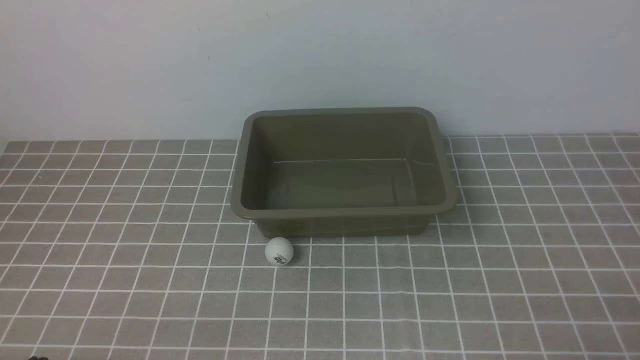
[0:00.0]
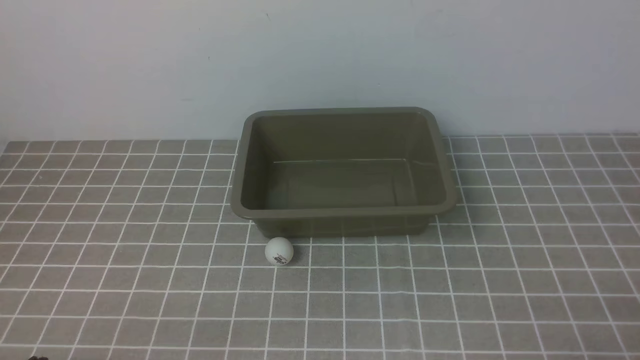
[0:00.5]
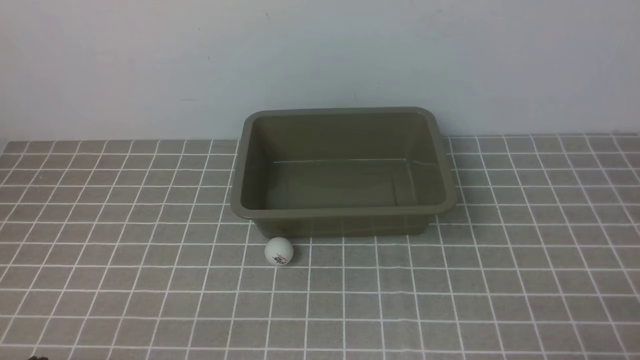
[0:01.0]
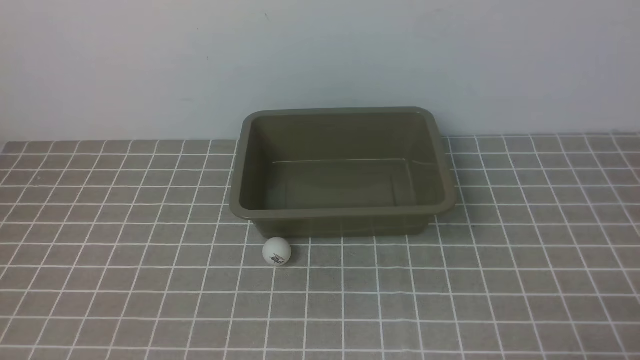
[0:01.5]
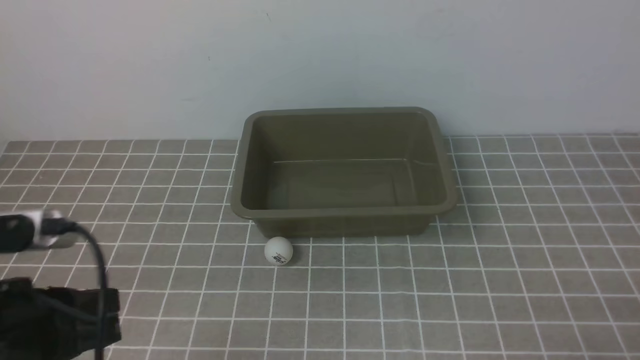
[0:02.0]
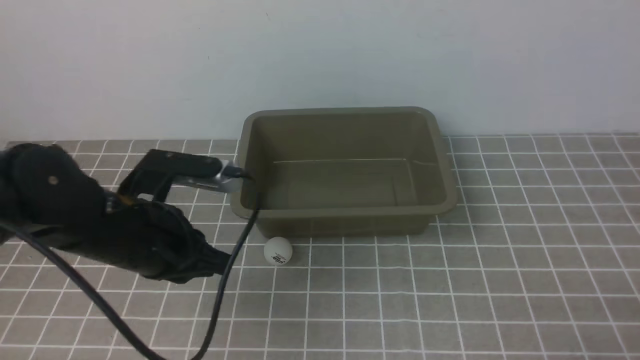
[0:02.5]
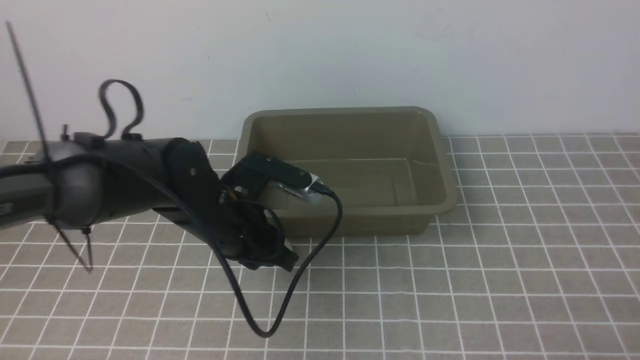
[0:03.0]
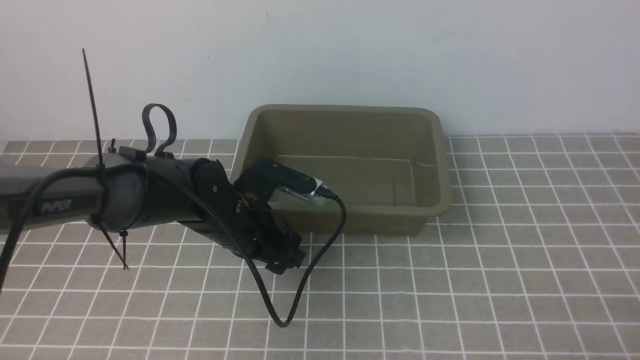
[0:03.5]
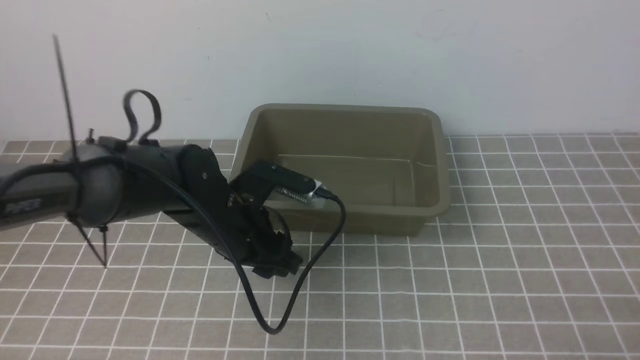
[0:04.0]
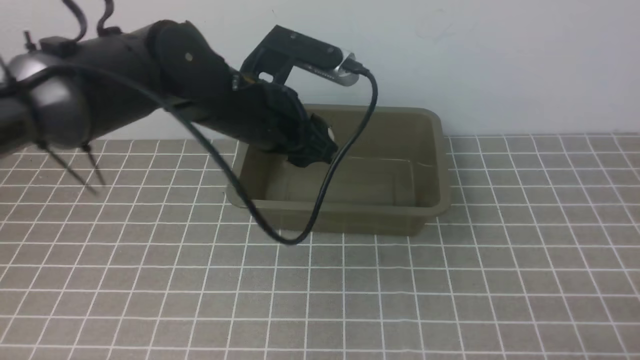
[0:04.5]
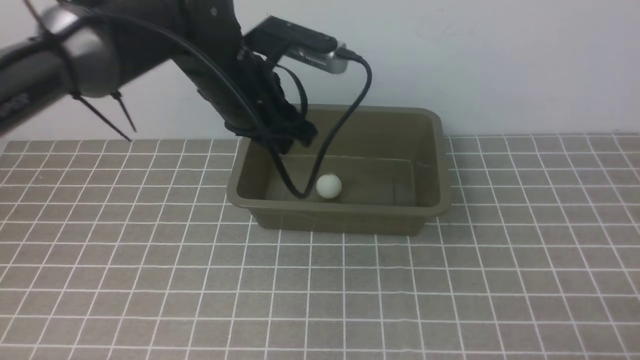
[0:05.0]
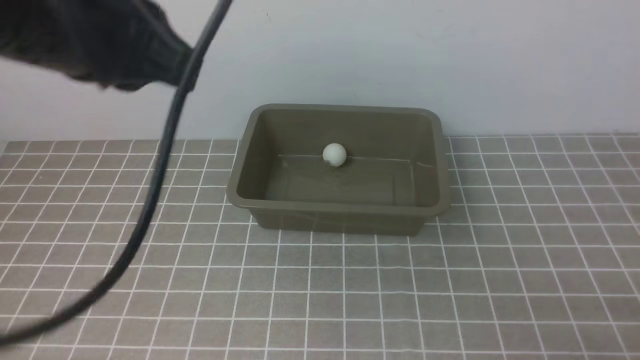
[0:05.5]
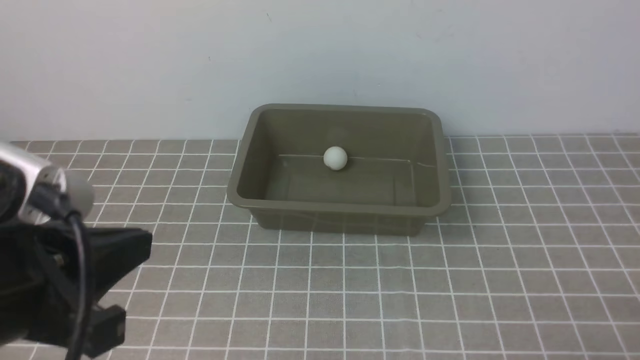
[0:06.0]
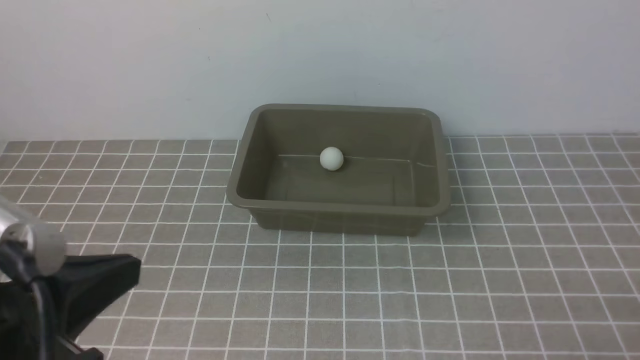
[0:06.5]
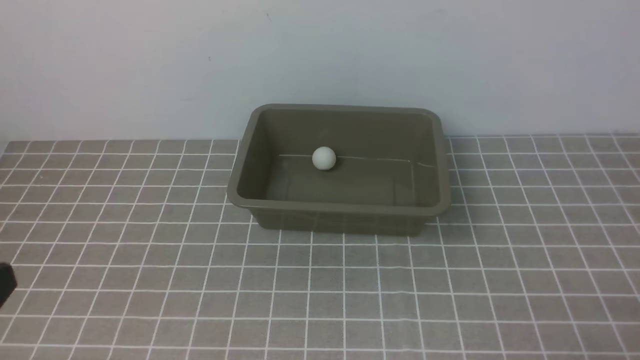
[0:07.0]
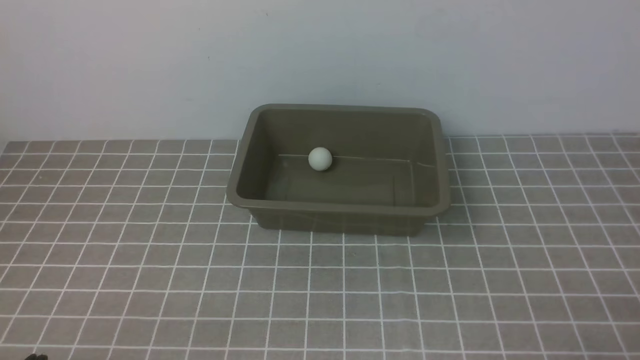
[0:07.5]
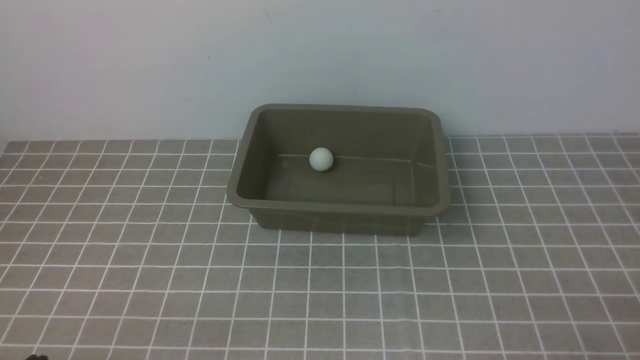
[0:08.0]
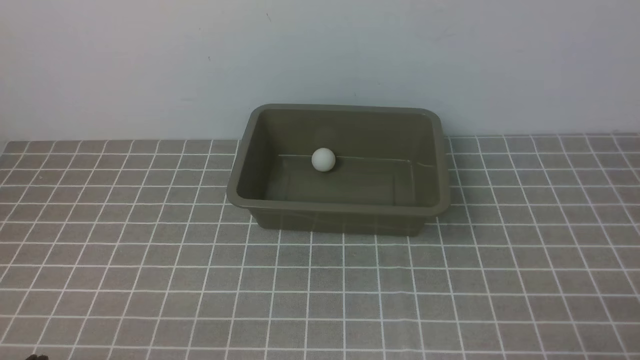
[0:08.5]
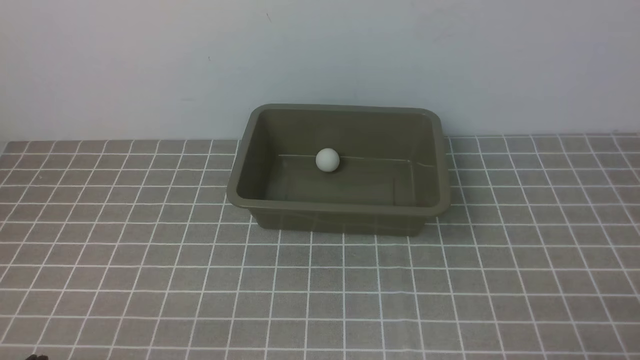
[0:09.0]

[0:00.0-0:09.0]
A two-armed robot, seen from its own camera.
Step, 0:00.0 to 0:04.0: use the left arm to clamp the table tennis ball closest to it.
Step, 0:04.5 to 0:05.0: use the left arm to put the table tennis ball into the box.
0:02.0 to 0:04.5: The left gripper shifts approximately 30 cm forward and to the right, and opens its fingers.
0:04.5 to 0:07.0: The left gripper is displaced backward and to the left by about 30 cm, and closes.

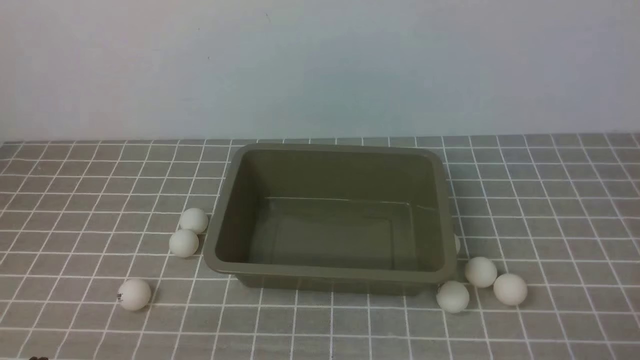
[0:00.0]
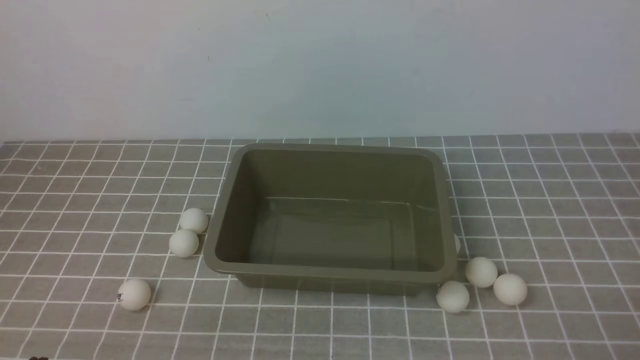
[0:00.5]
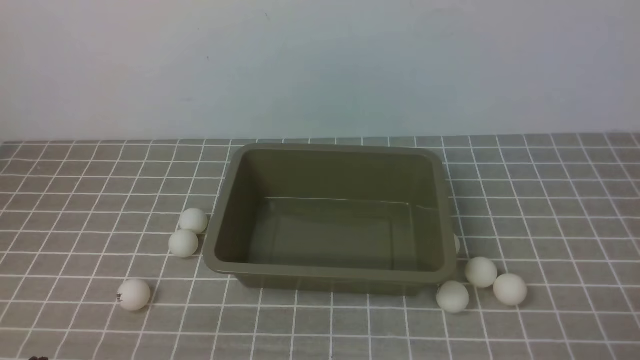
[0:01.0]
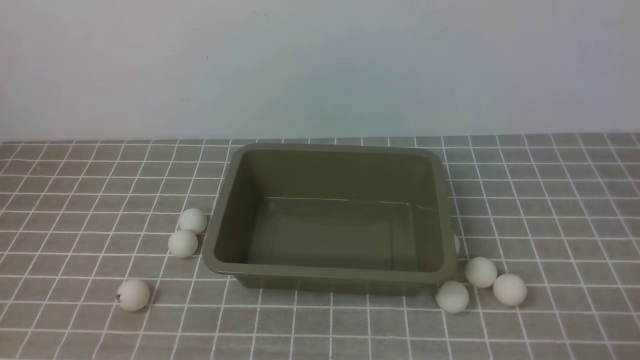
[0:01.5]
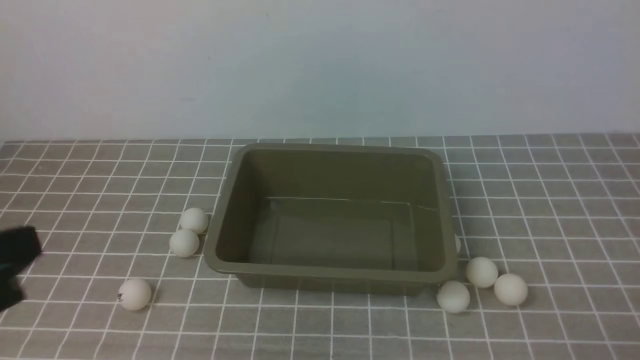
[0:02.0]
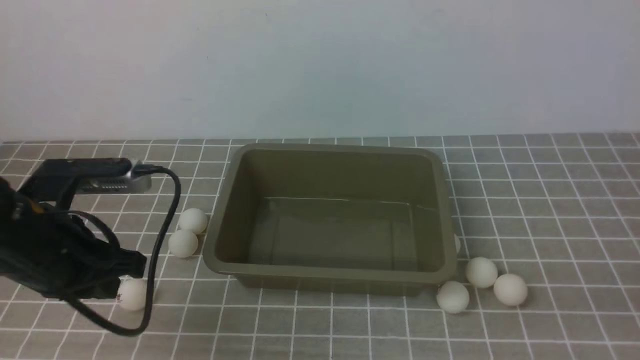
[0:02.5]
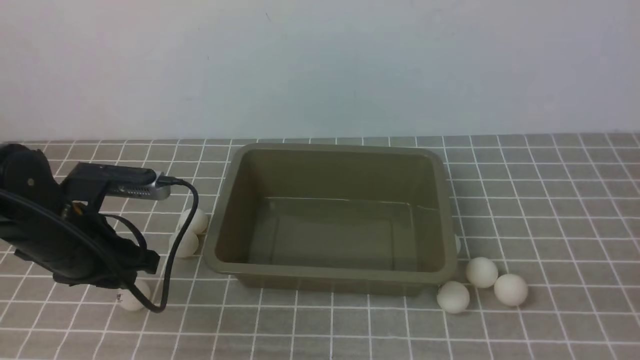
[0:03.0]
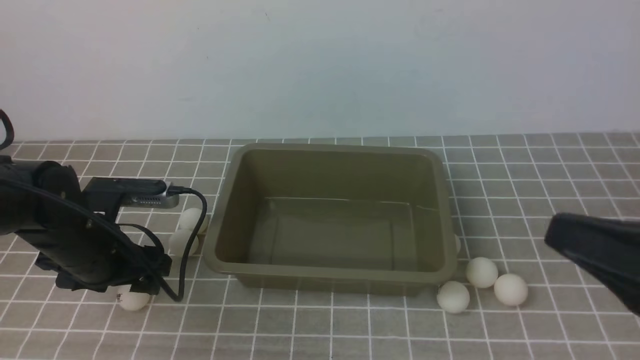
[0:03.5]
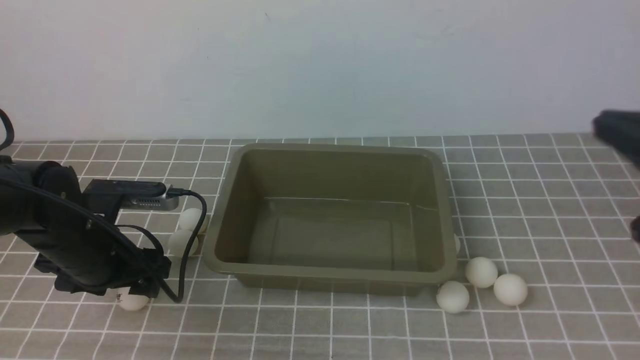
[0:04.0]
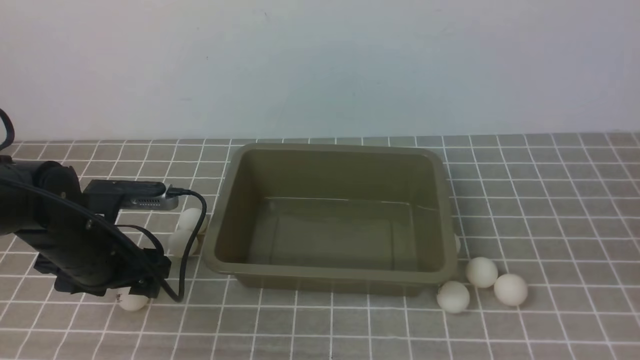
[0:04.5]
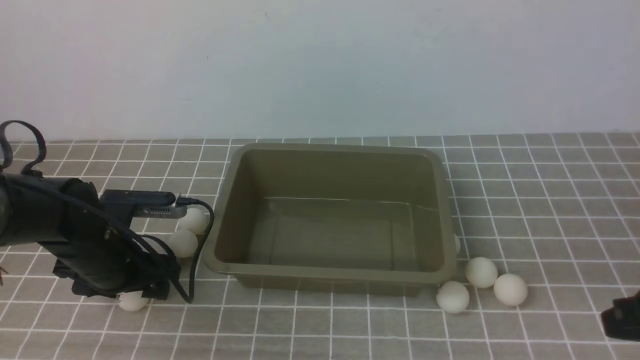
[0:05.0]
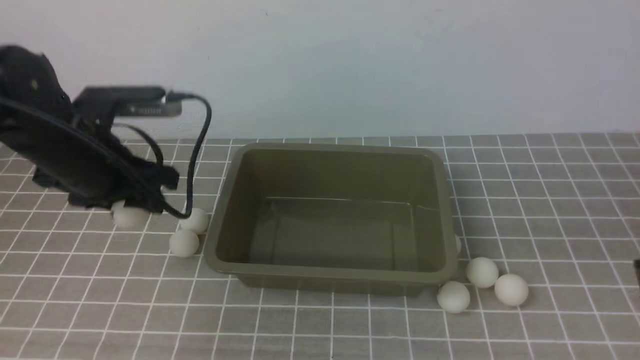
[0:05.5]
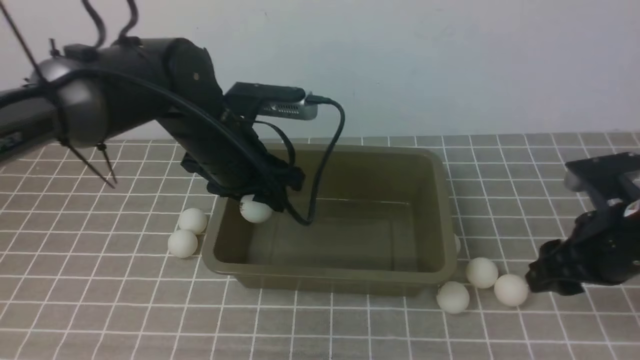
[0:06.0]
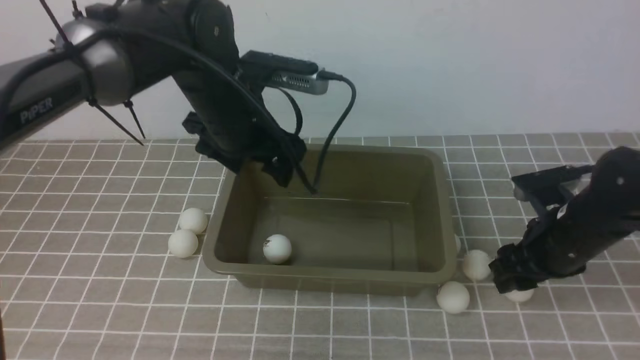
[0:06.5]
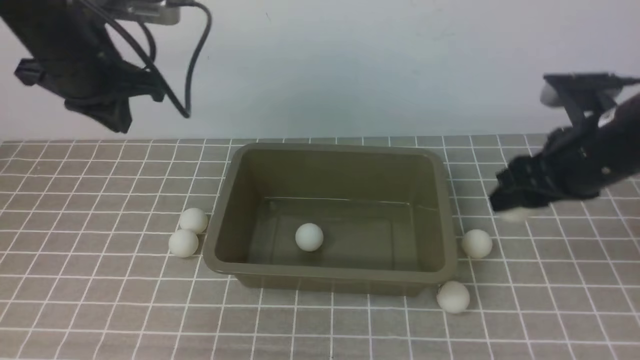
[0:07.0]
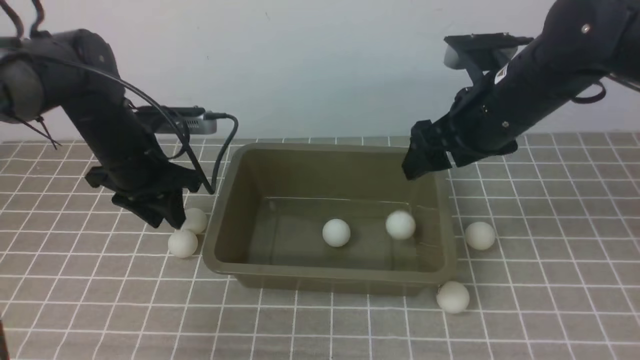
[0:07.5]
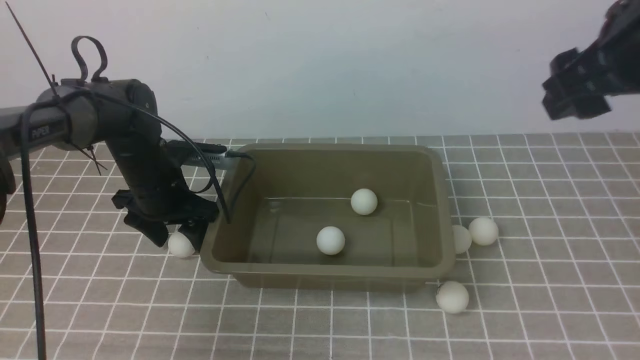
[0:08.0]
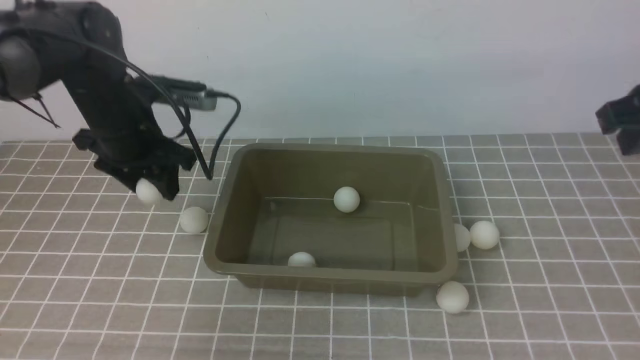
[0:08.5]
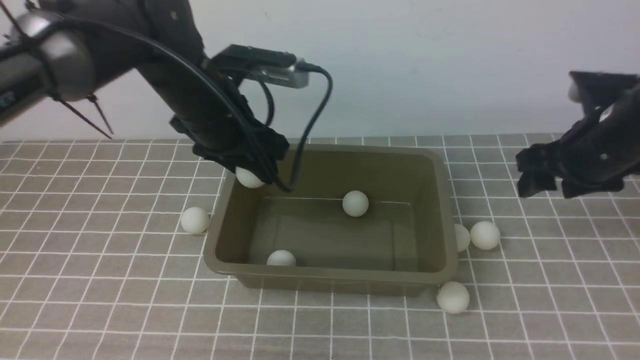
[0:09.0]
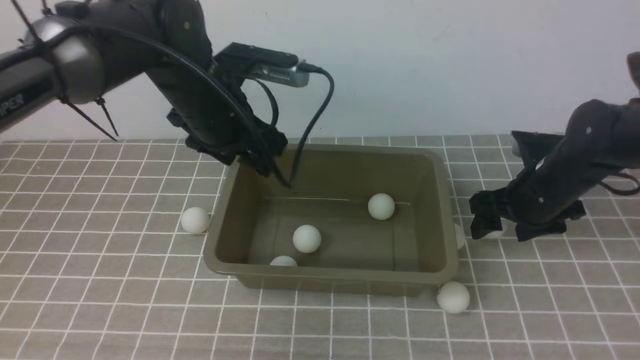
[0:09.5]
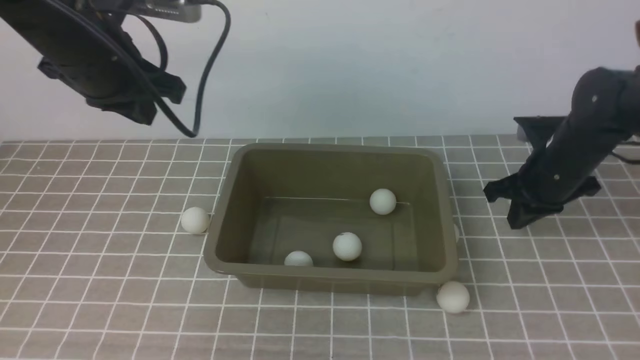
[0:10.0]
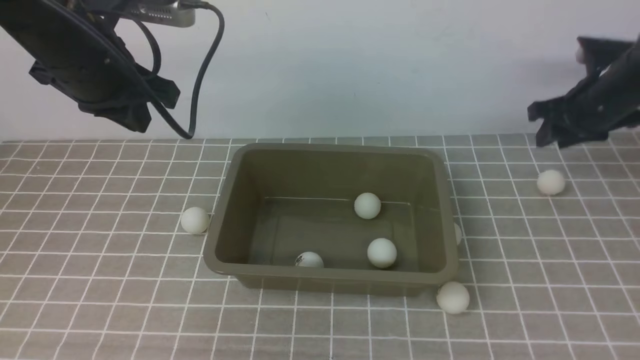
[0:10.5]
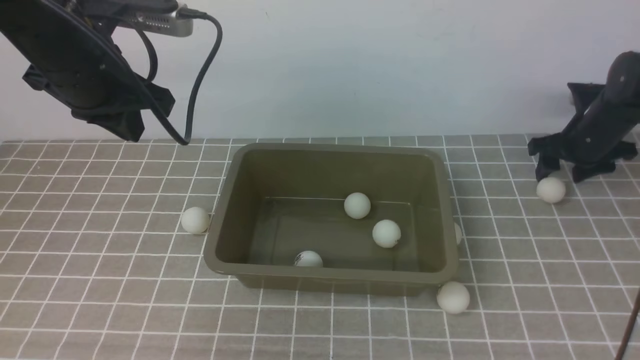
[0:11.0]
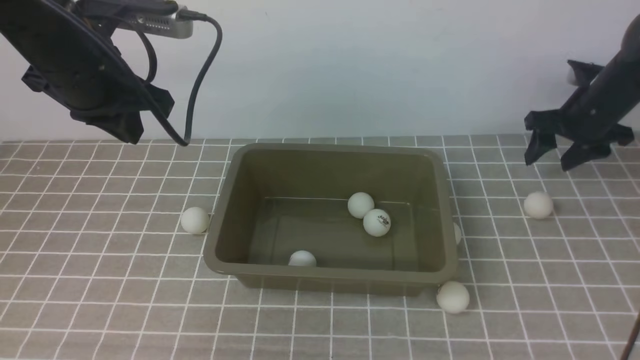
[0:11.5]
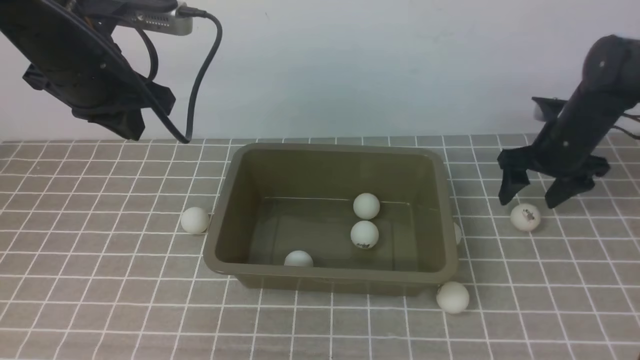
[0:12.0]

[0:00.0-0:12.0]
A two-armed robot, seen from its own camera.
Step, 0:00.0 to 0:05.0: use the left arm to clamp the table tennis ball closest to it.
Step, 0:05.5 to 0:06.5: use the right arm to clamp the table tennis ball closest to it.
Step, 0:07.5 to 0:08.0: use the left arm to clamp the table tennis ball closest to it.
0:00.0 to 0:02.0: The left gripper travels upward by about 15 cm.
0:02.0 to 0:04.0: The right gripper travels upward and forward by about 20 cm; the left gripper is displaced forward and downward by about 25 cm, and opens up.
0:04.0 to 0:06.0: The right gripper travels downward and forward by roughly 15 cm, and opens. The left gripper travels to the right, upward and forward by roughly 15 cm, and closes.
0:06.0 to 0:08.0: The left gripper shifts some 15 cm to the left, downward and forward, and closes, then opens again, while the right gripper heads upward, covering roughly 20 cm.
0:08.0 to 0:10.0: The left gripper heads upward, covering roughly 20 cm, and closes. The right gripper heads downward and forward, covering about 25 cm, and closes.
0:10.0 to 0:12.0: The right gripper reaches roughly 10 cm to the right, then returns, and opens.
